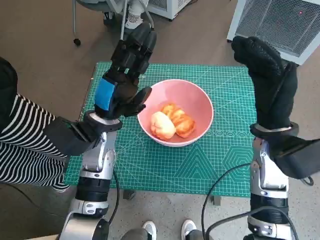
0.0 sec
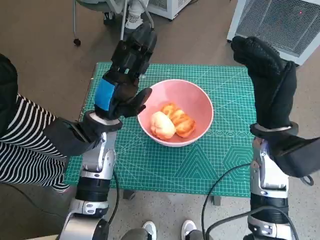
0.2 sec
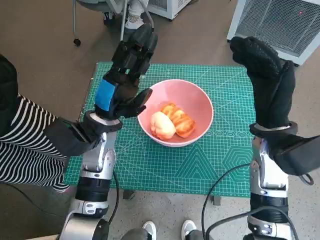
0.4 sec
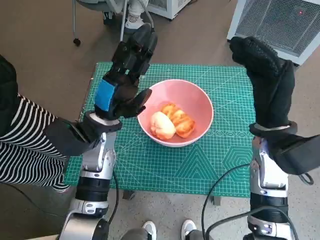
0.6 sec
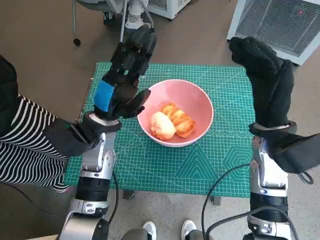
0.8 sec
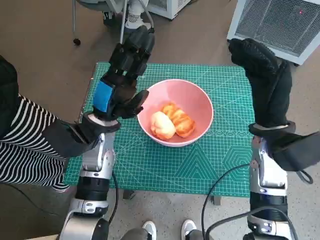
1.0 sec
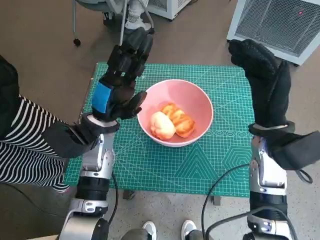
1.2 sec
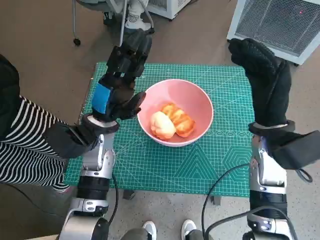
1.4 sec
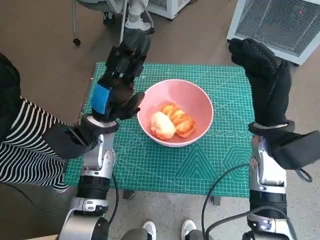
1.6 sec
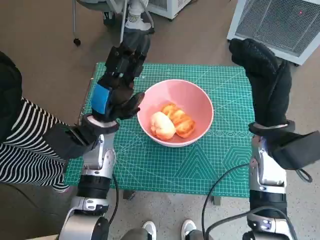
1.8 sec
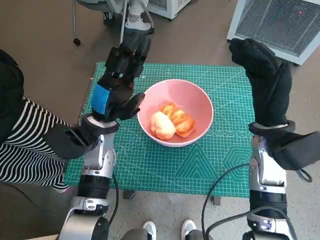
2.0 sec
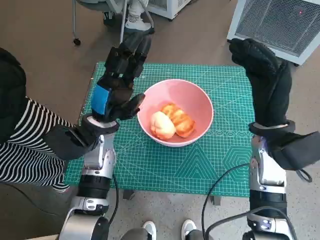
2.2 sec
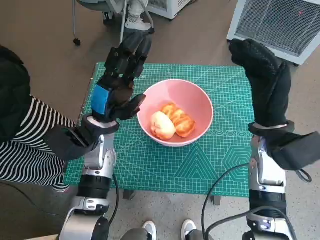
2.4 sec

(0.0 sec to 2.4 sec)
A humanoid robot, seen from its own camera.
Task of the whole recording: Push the bowl into the center of the table and put the bread into the bowl.
0.0 sec - 1.2 sec: The two hands keep their place.
1.2 sec - 2.4 sec: Both hands stay put.

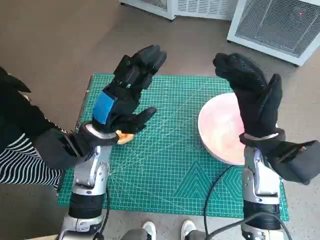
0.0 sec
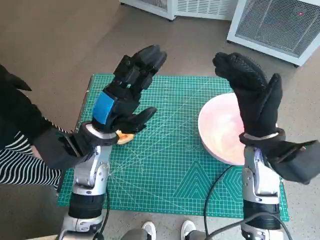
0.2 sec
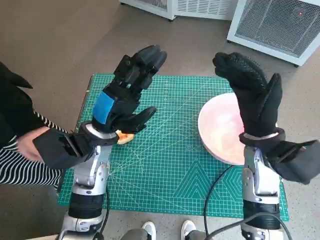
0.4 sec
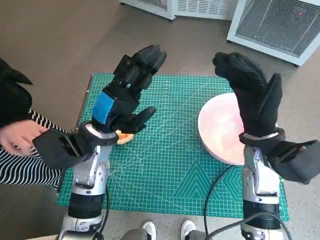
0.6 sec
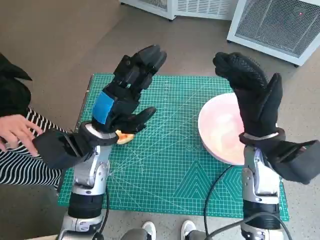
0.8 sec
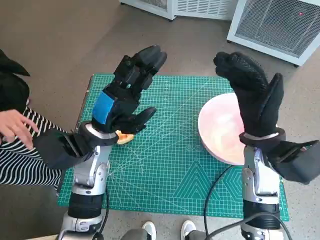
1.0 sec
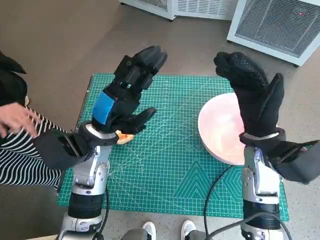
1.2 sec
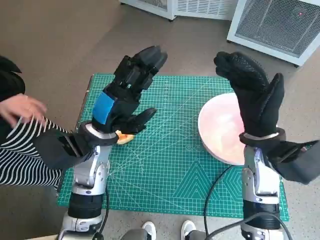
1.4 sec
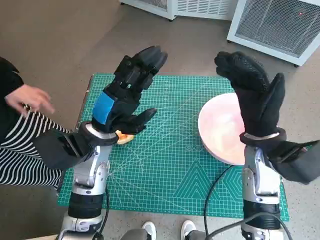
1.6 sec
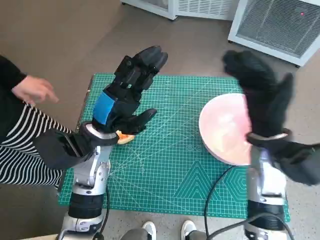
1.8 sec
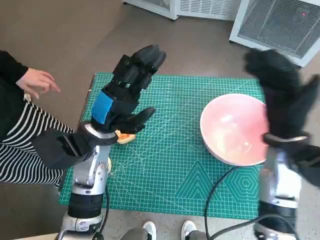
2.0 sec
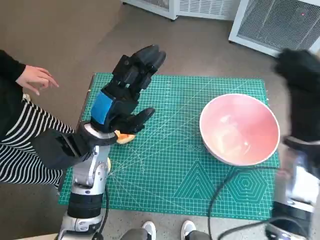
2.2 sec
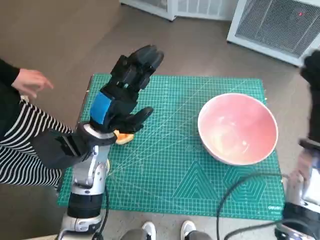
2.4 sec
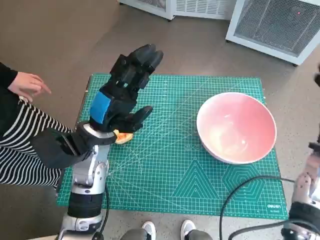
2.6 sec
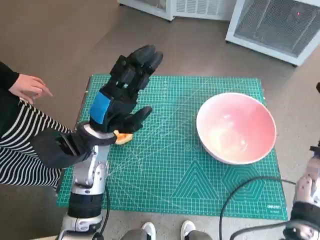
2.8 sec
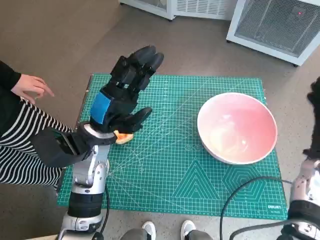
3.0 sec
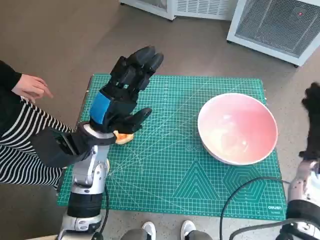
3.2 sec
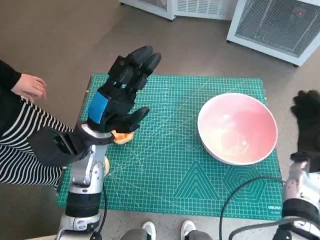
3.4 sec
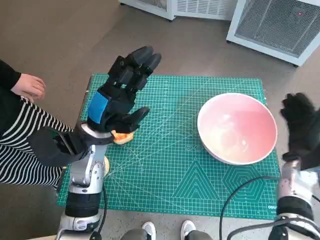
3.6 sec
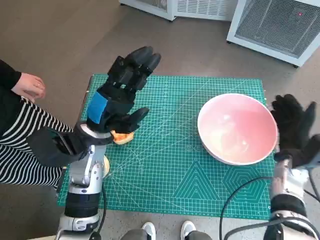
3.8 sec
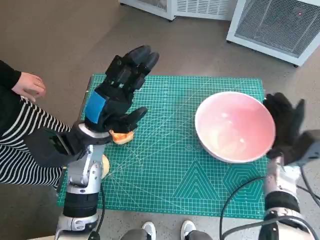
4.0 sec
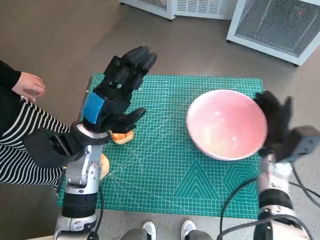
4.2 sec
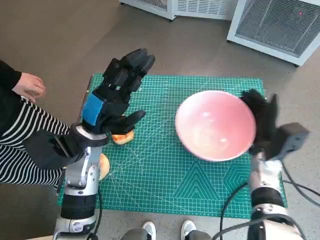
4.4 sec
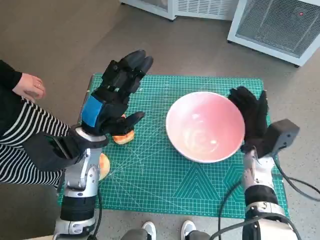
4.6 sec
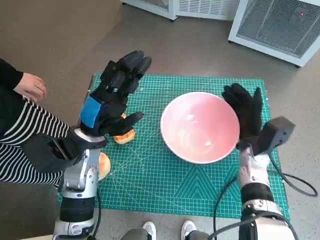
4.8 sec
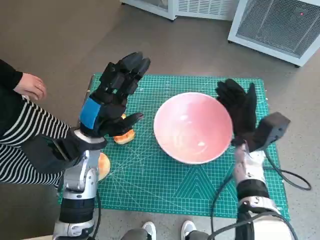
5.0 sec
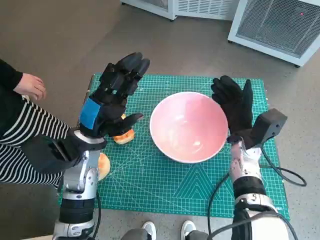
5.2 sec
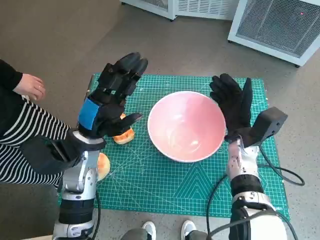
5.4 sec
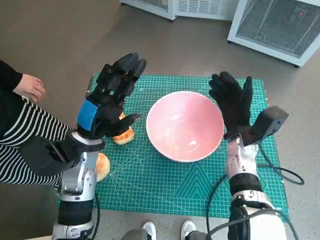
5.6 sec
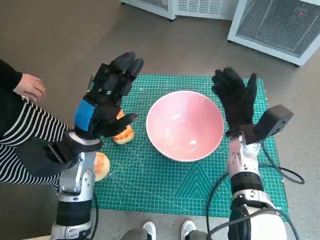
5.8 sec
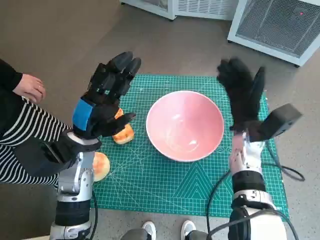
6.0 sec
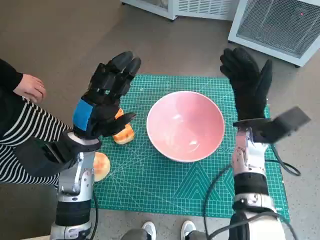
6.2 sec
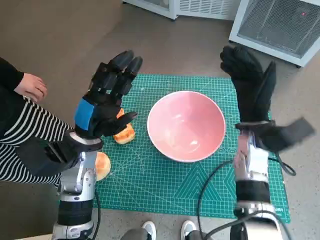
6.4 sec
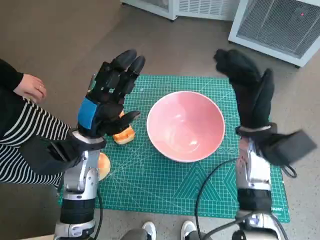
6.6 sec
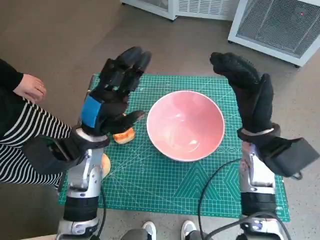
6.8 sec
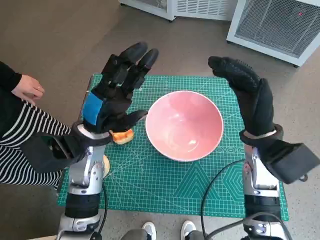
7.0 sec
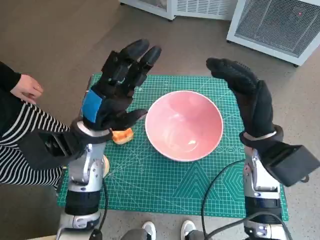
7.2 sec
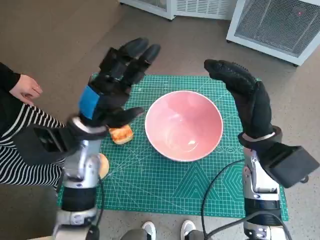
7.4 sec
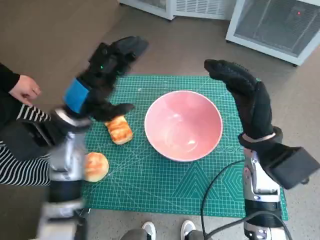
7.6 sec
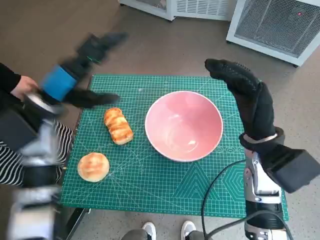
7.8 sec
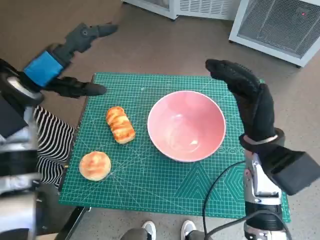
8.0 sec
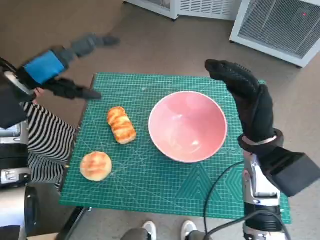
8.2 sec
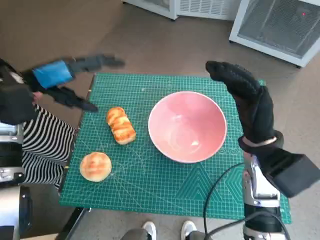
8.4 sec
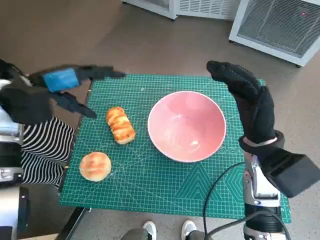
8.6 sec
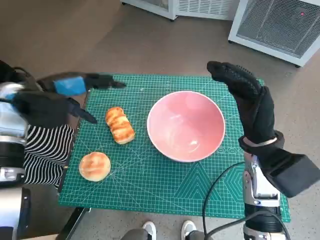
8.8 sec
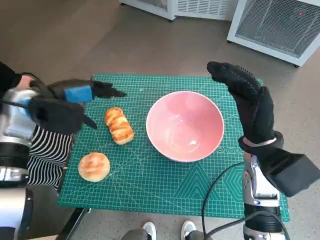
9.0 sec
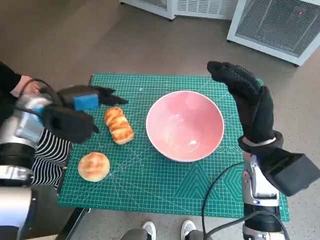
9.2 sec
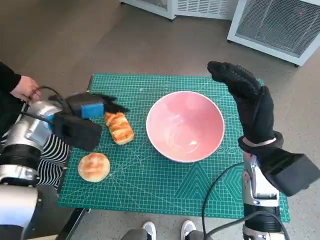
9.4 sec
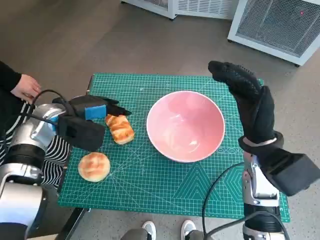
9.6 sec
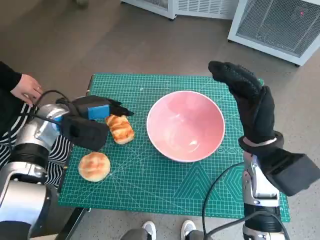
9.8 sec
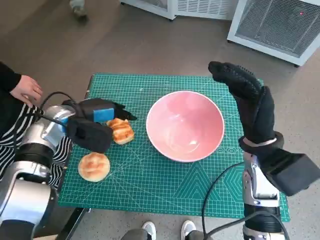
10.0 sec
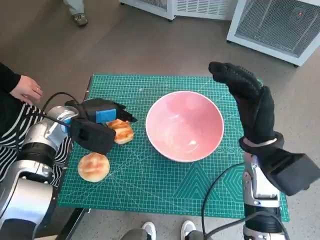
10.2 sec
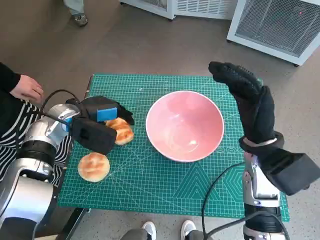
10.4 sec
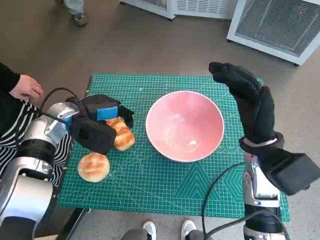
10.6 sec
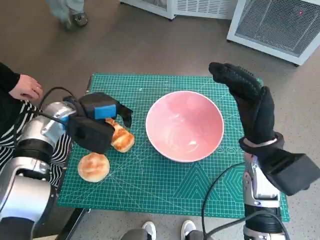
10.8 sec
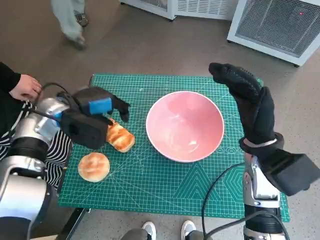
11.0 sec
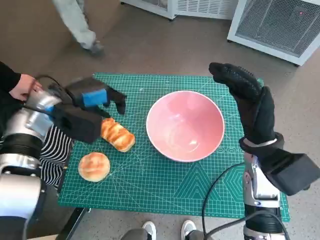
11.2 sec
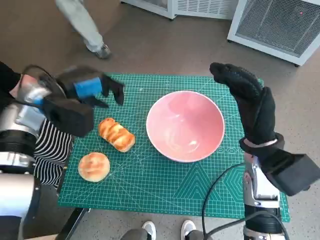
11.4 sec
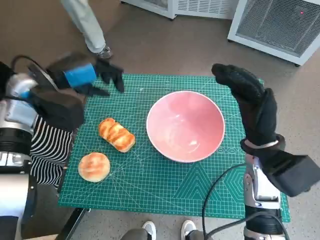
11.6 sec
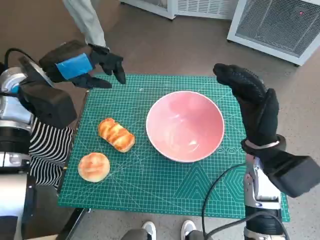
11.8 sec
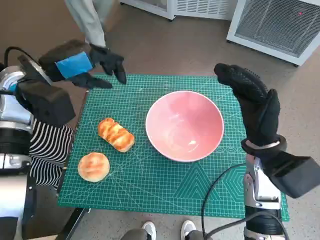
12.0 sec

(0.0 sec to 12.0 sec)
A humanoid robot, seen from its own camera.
Task of the whole recording: Push the bowl into the center of the table and put the bread into the bowl.
Step, 0.0 sec - 6.6 sec: Move the pink bowl to the center of table with right hand.
1.6 sec - 3.0 sec: The right hand shifts roughly 15 cm to the right and downward.
3.0 sec - 4.4 sec: The right hand moves to the left and downward, roughly 10 cm.
4.4 sec - 6.0 sec: The right hand travels to the left by roughly 5 cm.
6.0 sec - 7.6 sec: The right hand goes about 10 cm upward and backward.
7.6 sec - 9.0 sec: The left hand shifts roughly 10 cm to the left.
9.0 sec - 10.4 sec: The left hand heads downward, covering roughly 5 cm.
10.4 sec - 12.0 sec: The left hand travels upward by about 10 cm.

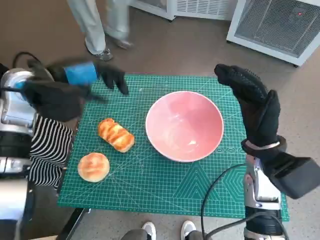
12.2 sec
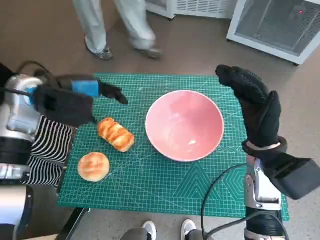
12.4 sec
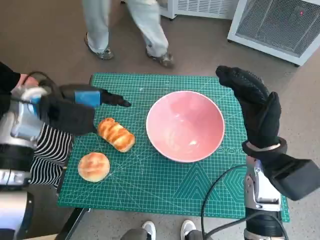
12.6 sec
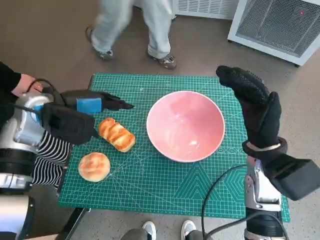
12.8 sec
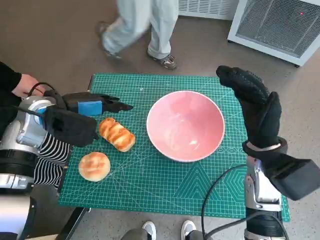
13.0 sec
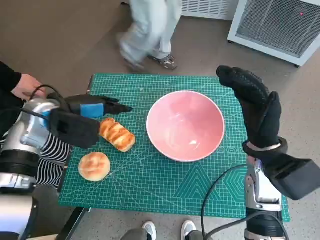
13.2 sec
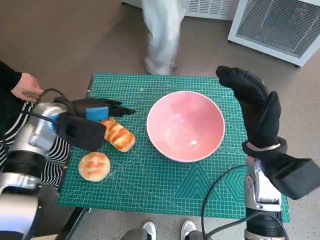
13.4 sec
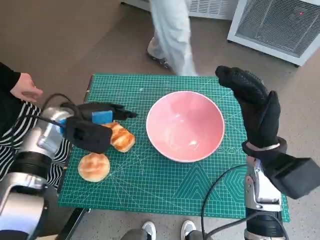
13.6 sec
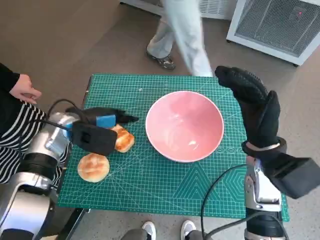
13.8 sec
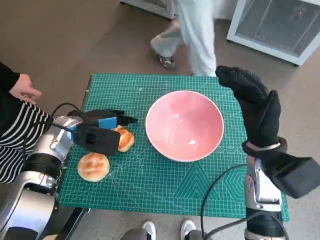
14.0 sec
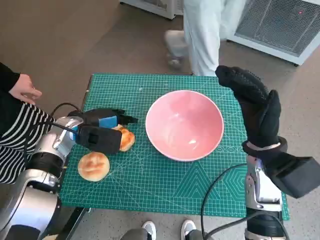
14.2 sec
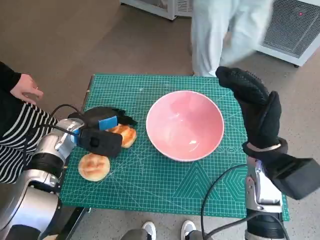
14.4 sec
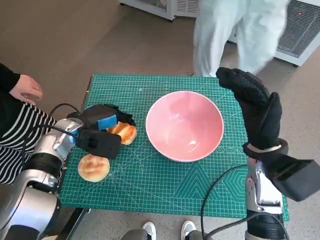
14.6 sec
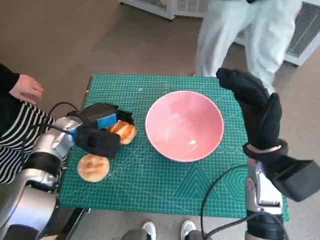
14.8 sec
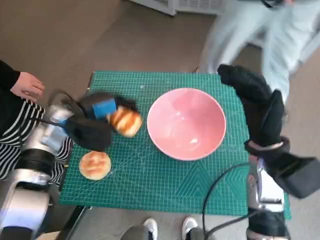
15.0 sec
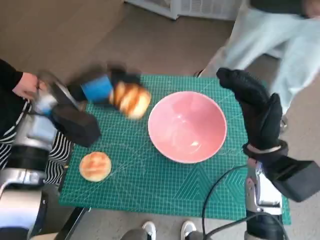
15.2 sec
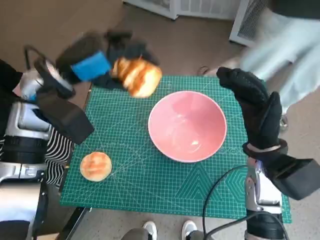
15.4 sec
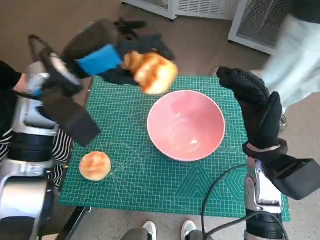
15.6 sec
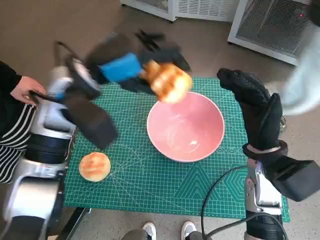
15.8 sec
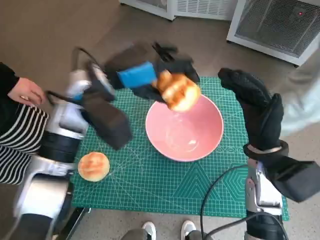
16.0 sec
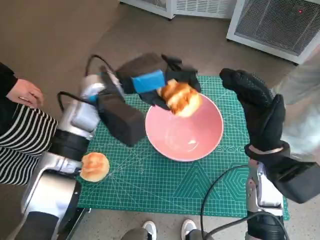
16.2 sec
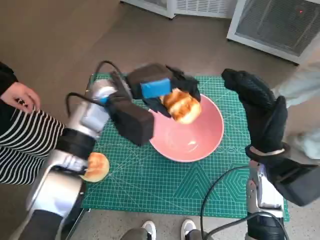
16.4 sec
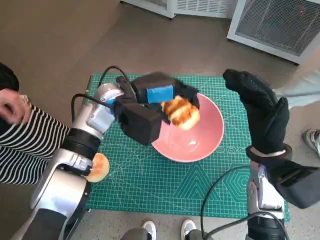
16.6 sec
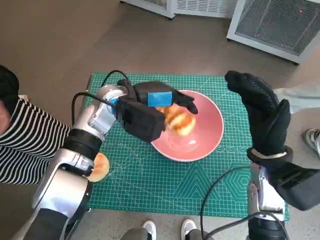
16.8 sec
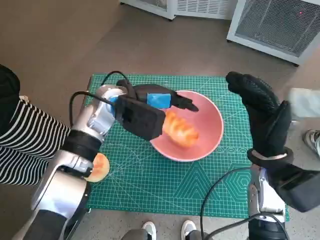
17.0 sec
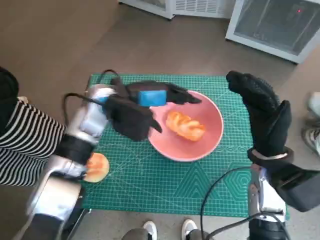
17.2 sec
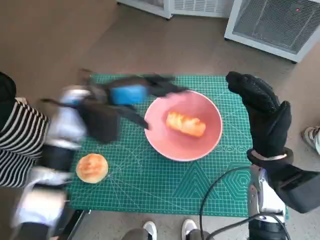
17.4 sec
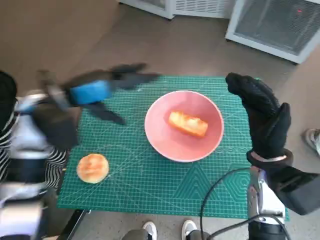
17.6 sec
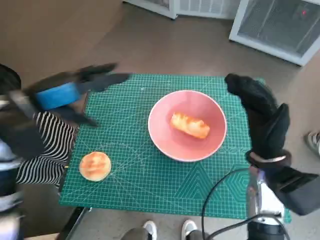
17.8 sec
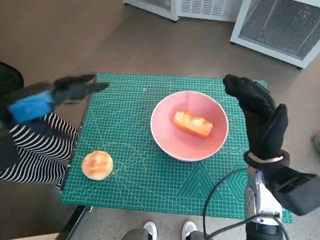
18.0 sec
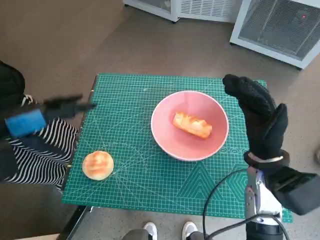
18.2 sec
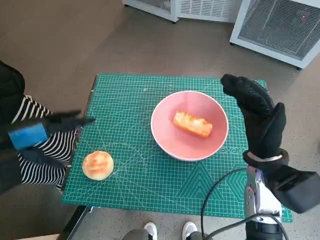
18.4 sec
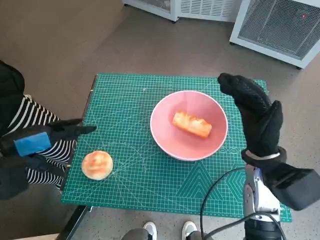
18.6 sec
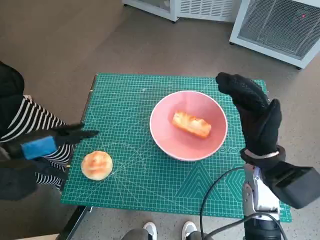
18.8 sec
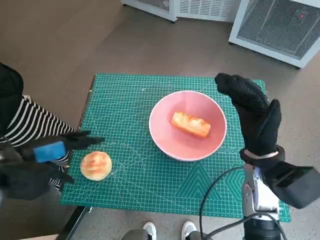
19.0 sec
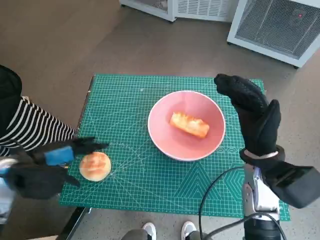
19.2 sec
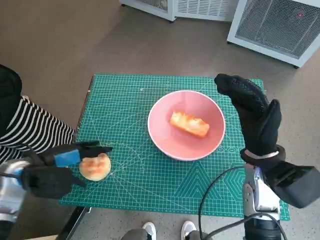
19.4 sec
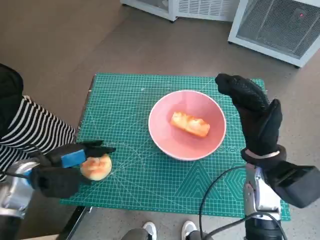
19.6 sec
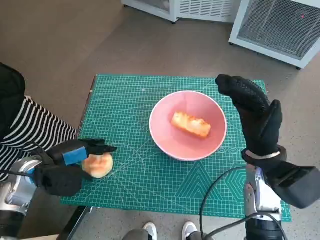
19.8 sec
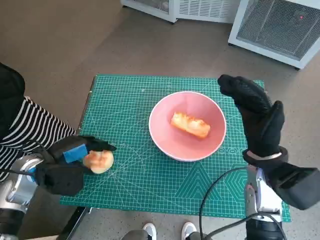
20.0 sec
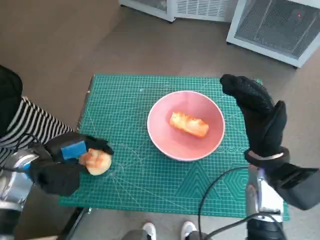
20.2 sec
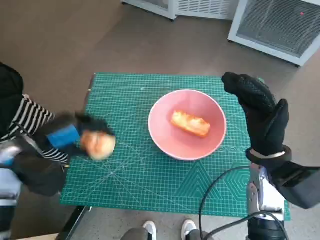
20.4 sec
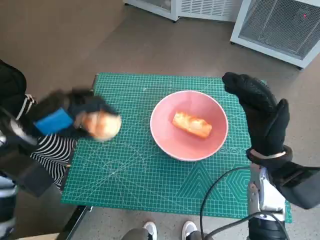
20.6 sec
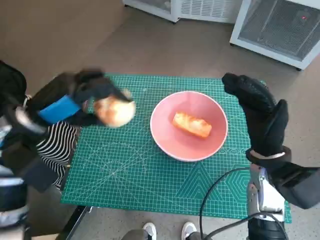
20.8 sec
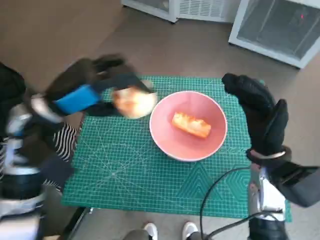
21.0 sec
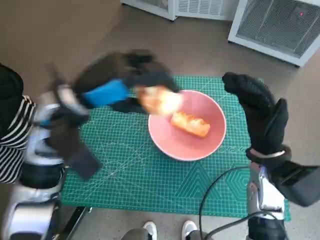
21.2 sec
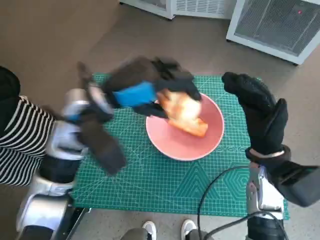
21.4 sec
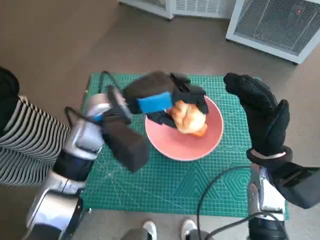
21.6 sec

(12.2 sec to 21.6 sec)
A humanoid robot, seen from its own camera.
Task of the whole recording: Push the bowl into the center of the table and put the bread into the bowl.
Step, 12.2 sec - 14.6 sec: Grasp the long bread with left hand.
Step, 14.8 sec - 17.4 sec: Place the long bread in pink bowl with left hand.
Step, 17.6 sec - 19.8 sec: Grasp the round bread with left hand.
12.2 sec - 13.8 sec: The left hand is displaced downward by some 10 cm.
13.8 sec - 15.4 sec: The left hand shifts some 10 cm upward.
15.4 sec - 17.0 sec: The left hand goes approximately 10 cm to the right and downward.
17.0 sec - 18.4 sec: The left hand heads to the left and backward, covering some 25 cm.
18.4 sec - 20.0 sec: The left hand shifts some 10 cm downward.
20.0 sec - 21.6 sec: The left hand travels to the right and upward by some 20 cm.
